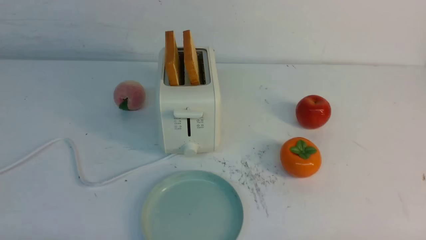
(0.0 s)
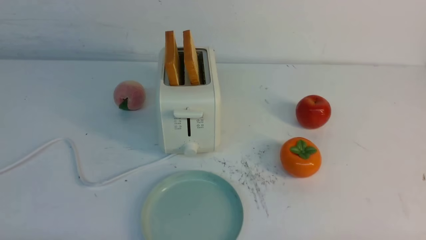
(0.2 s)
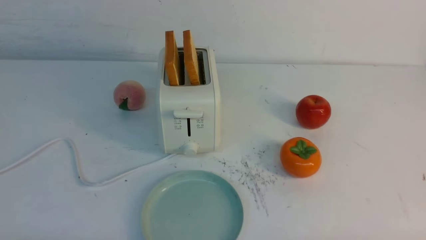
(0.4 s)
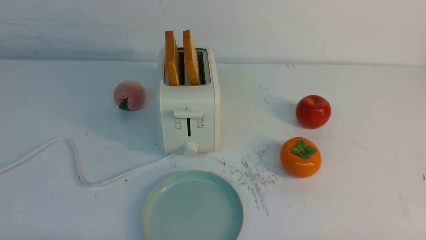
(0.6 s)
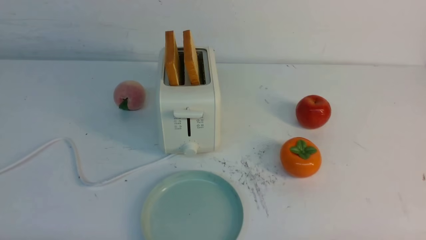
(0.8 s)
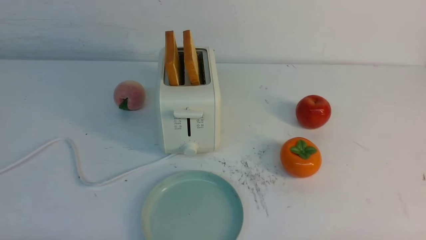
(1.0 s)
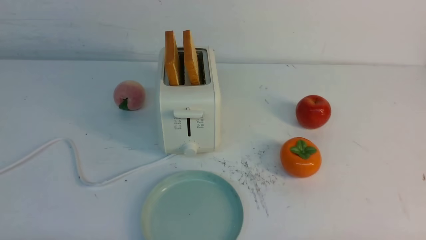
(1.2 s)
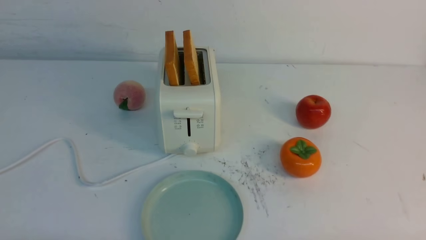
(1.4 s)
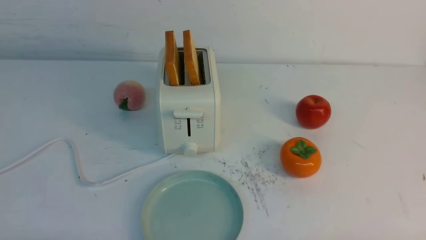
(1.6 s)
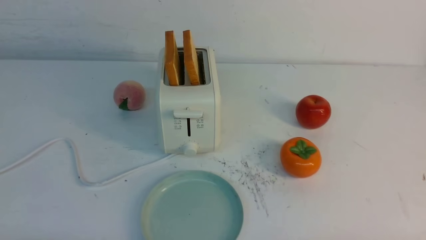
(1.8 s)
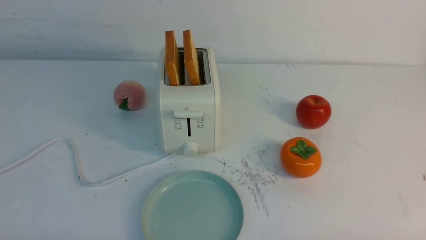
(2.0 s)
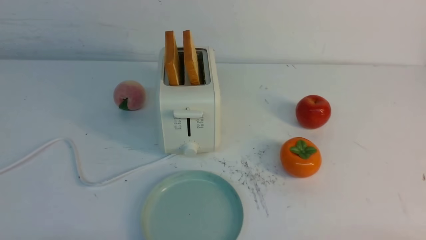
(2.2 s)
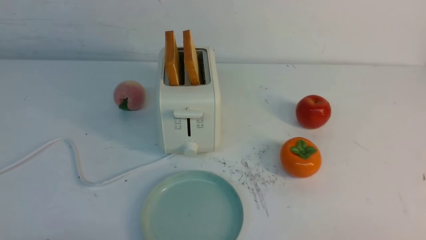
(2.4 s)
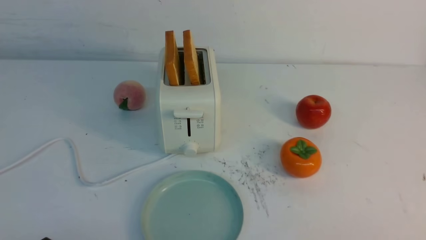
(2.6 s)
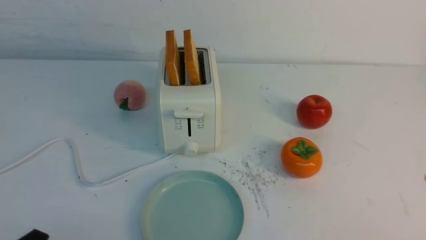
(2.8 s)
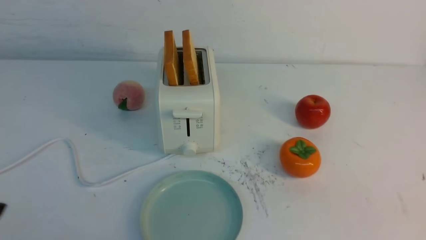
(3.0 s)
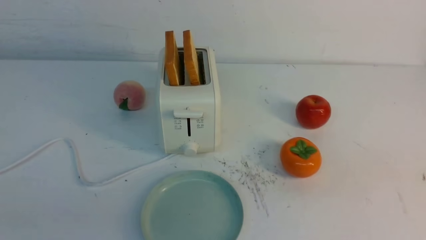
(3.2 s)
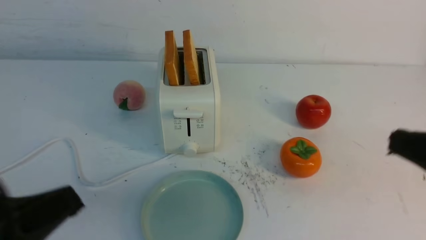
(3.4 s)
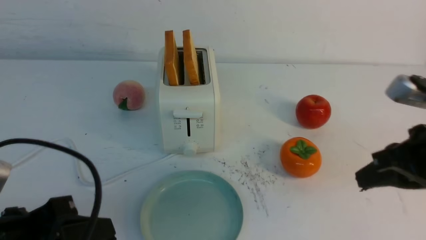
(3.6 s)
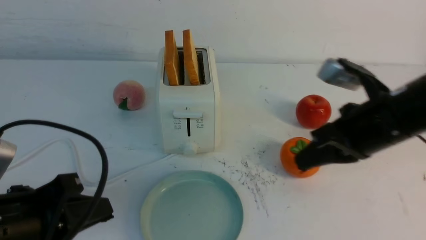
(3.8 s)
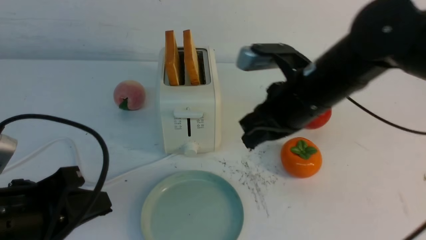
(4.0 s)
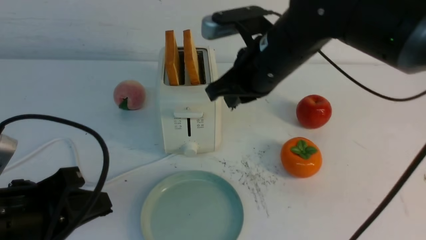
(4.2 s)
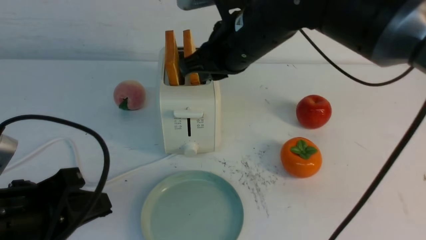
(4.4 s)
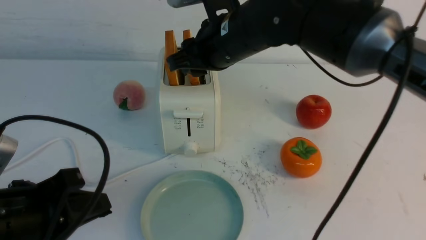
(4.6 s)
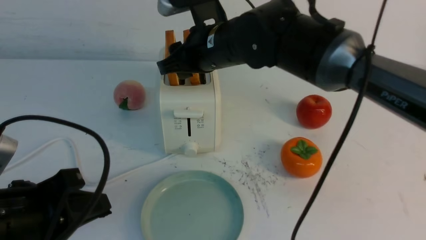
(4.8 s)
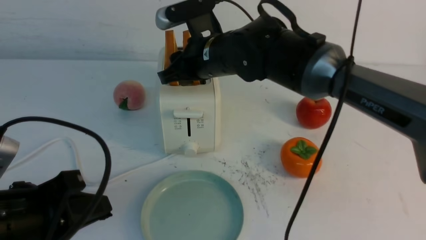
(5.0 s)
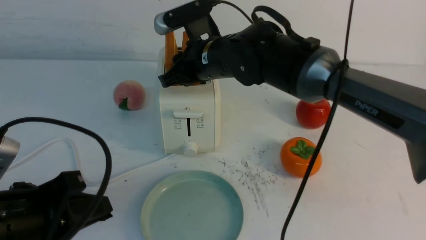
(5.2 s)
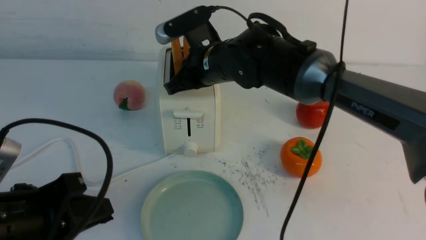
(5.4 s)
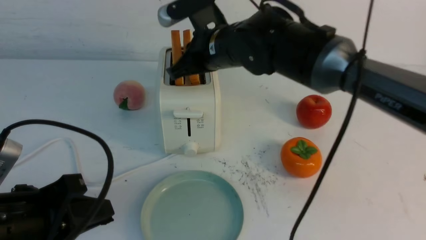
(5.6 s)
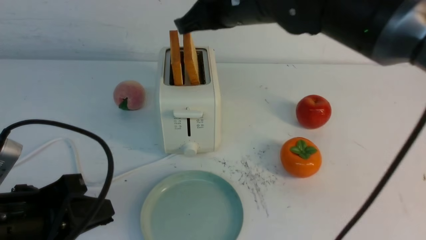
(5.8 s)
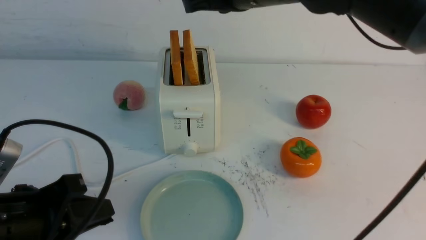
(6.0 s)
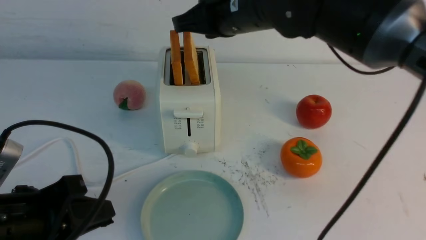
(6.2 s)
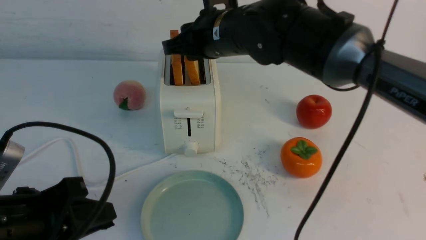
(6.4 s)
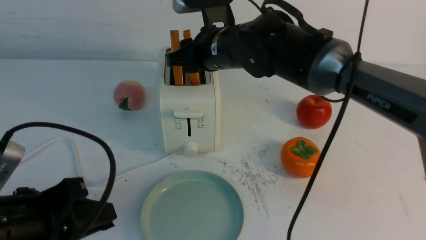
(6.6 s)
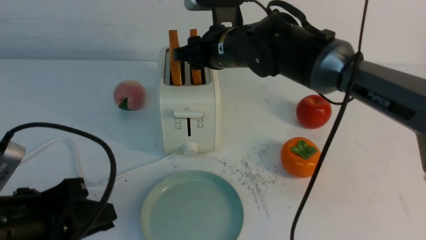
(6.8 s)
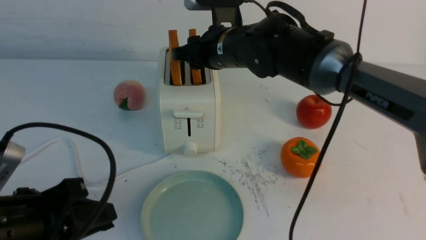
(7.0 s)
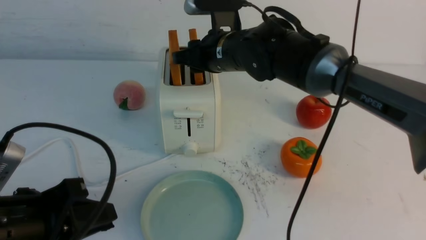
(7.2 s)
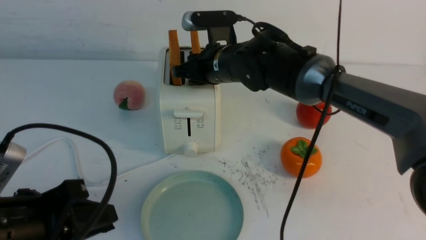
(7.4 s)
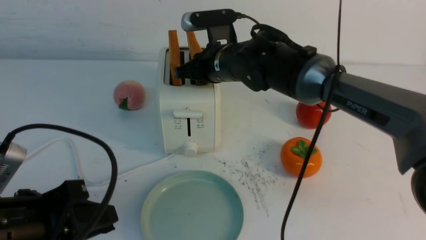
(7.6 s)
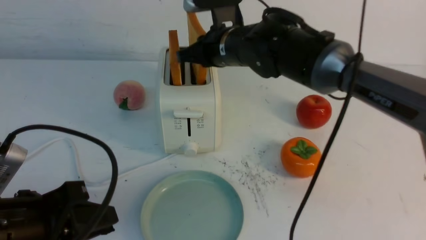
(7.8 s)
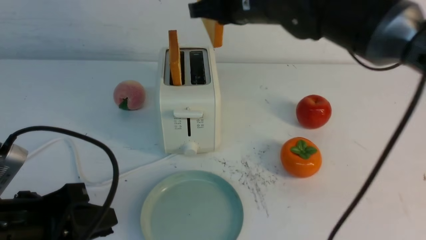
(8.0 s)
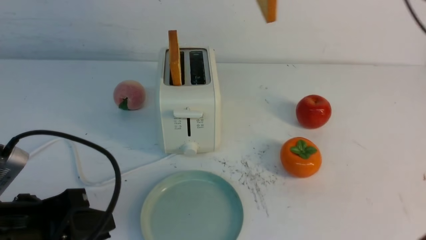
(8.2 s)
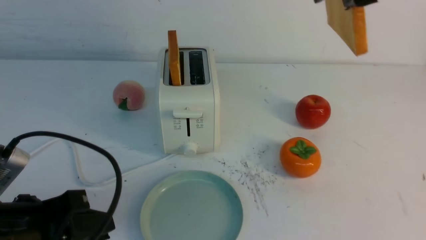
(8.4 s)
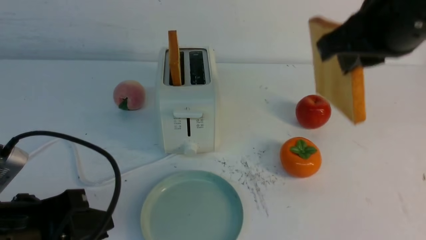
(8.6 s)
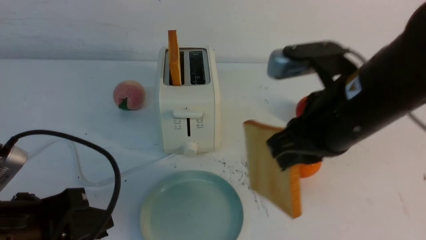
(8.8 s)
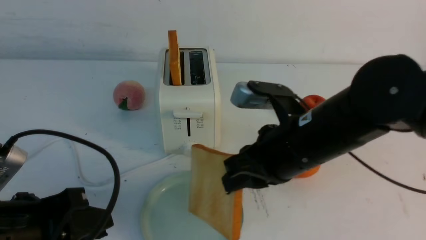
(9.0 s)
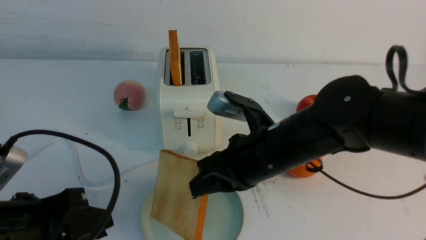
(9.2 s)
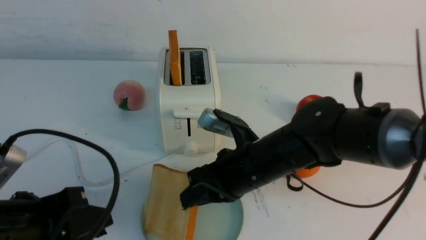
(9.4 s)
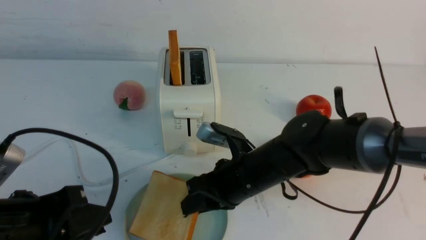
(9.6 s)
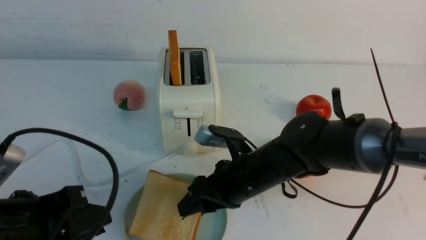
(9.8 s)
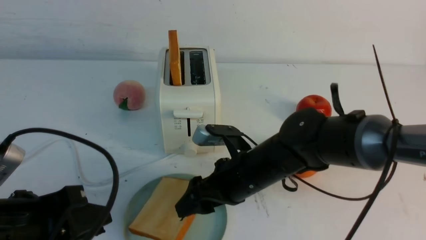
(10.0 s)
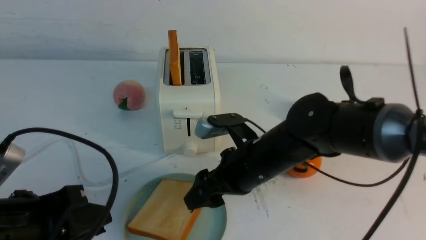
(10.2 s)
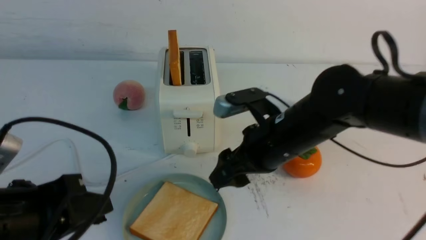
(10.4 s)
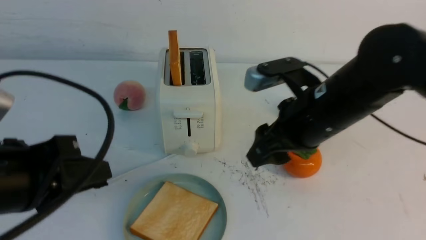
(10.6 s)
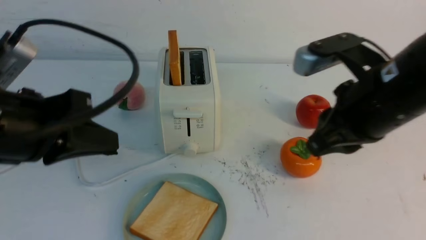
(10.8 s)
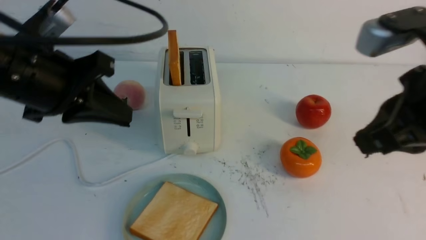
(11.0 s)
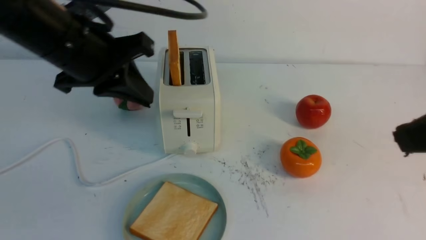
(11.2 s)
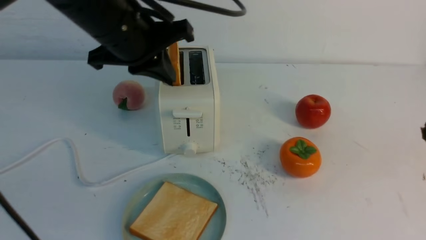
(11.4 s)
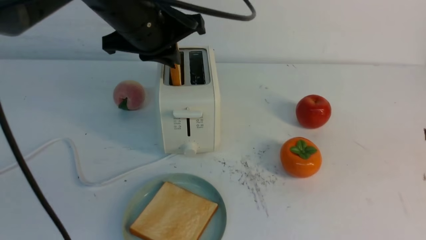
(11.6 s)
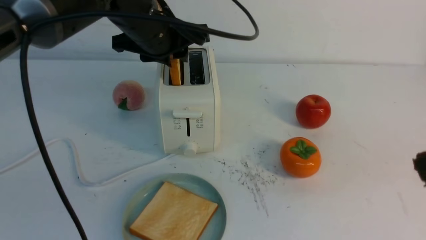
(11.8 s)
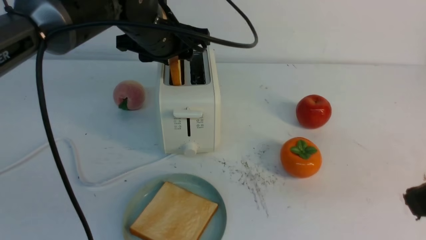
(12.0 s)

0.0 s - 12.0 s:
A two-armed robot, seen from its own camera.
Task of the whole recording: take toasted bread from bread machine on white table place on plate.
Step, 0.0 s - 7.8 s: use the right arm to take out a slice of bread.
Step, 8.0 s - 10.4 s: use the right arm to put a slice of bread into the plate.
0.0 s - 1.6 s: Neither gripper changes place.
3.0 s - 4.4 s: The right gripper travels forward and to the left by about 40 cm. Meanwhile the left gripper shifts approximately 10 cm forward.
4.4 s - 6.0 s: The right gripper opens and closes again.
6.0 s - 7.6 s: The right gripper goes some 15 cm downward and forward, and opens, then closes again.
7.6 s - 9.0 s: The right gripper shifts about 20 cm backward.
9.0 s - 10.4 s: The right gripper reaches about 10 cm downward, then returns, and opens.
10.4 s - 12.0 s: The right gripper travels backward, to the right and upward by about 25 cm, and closes up, while the left gripper shifts some 30 cm forward and to the right, and opens.

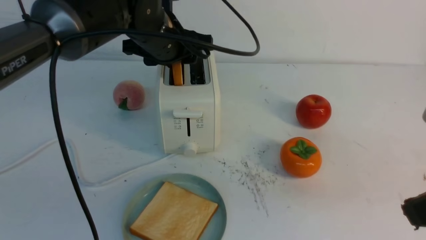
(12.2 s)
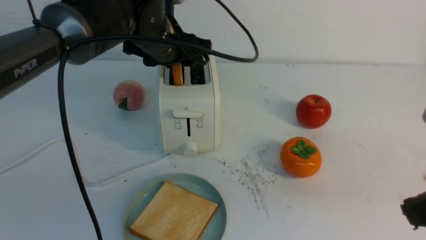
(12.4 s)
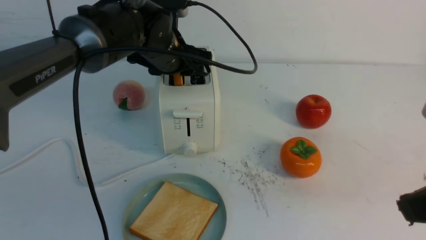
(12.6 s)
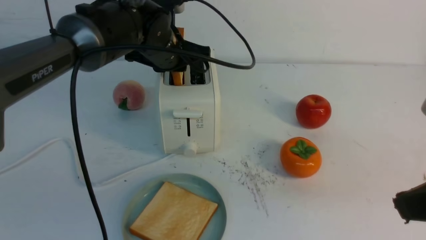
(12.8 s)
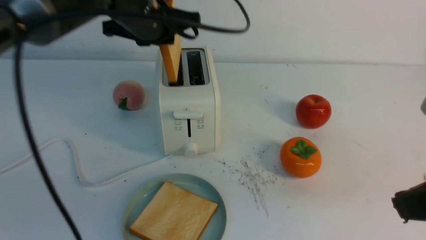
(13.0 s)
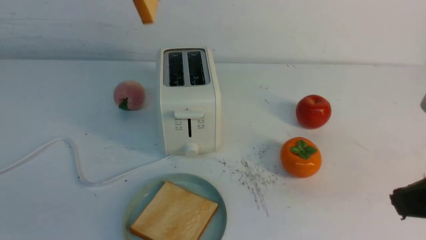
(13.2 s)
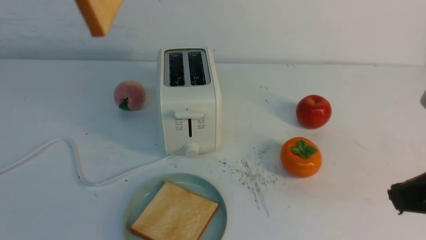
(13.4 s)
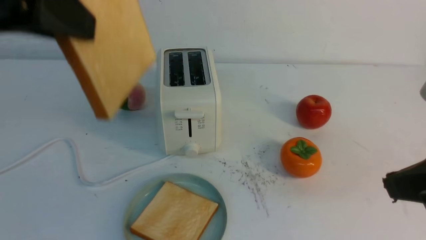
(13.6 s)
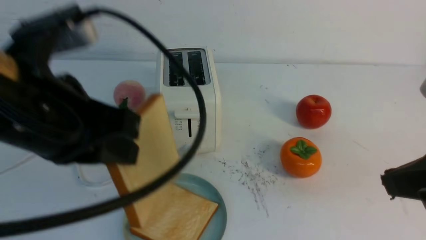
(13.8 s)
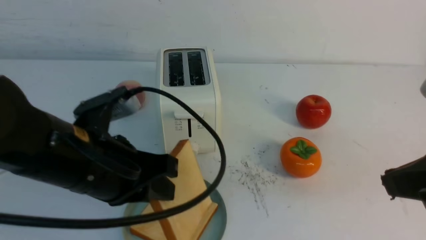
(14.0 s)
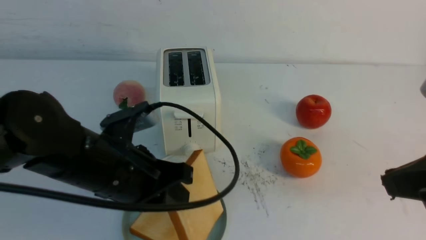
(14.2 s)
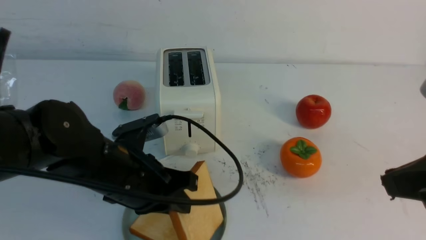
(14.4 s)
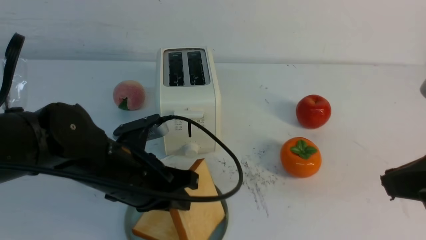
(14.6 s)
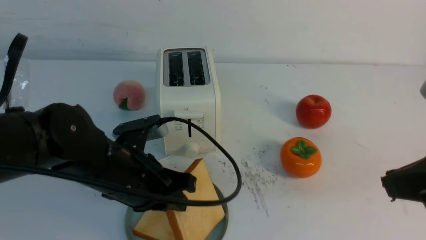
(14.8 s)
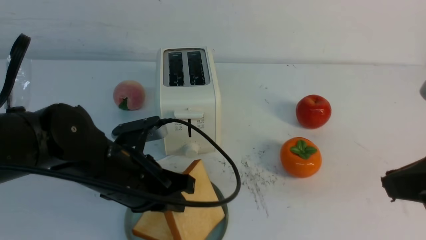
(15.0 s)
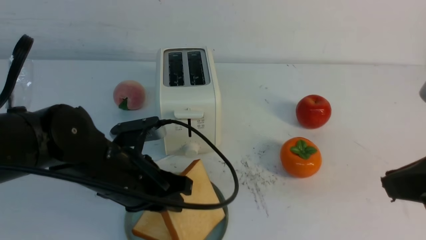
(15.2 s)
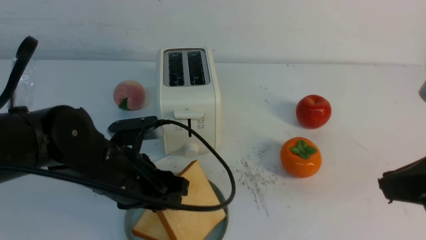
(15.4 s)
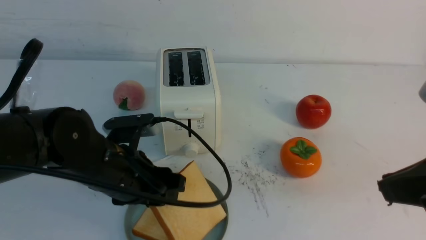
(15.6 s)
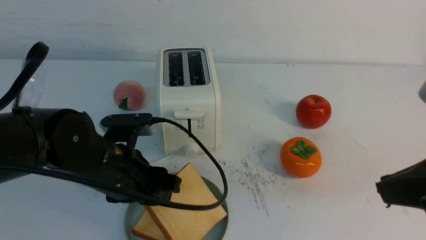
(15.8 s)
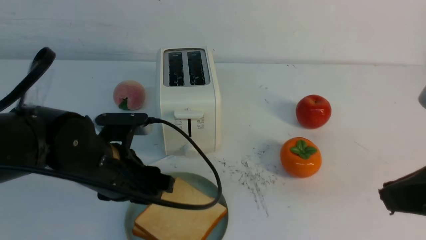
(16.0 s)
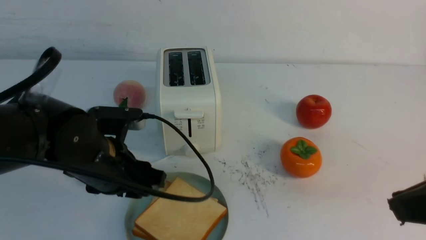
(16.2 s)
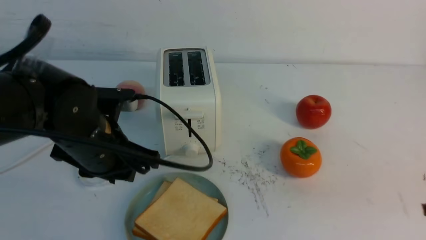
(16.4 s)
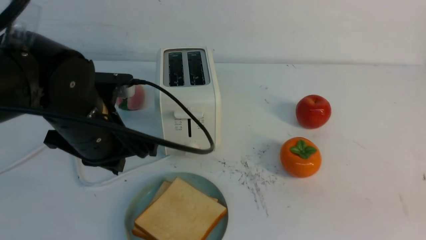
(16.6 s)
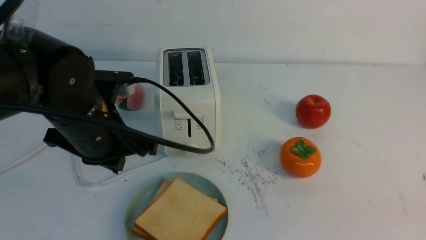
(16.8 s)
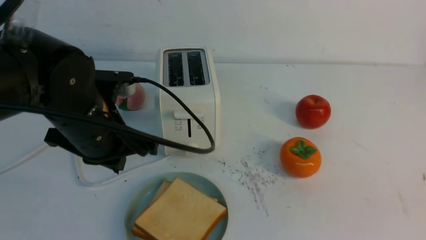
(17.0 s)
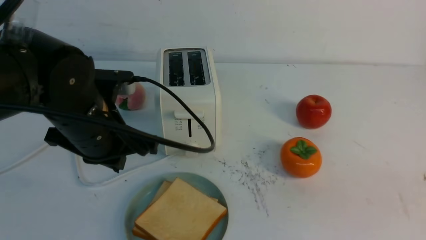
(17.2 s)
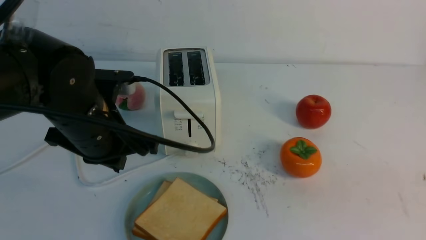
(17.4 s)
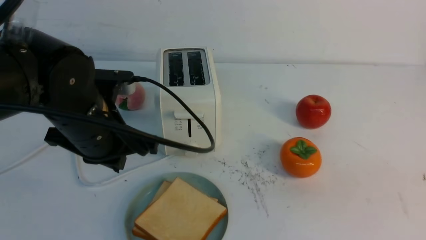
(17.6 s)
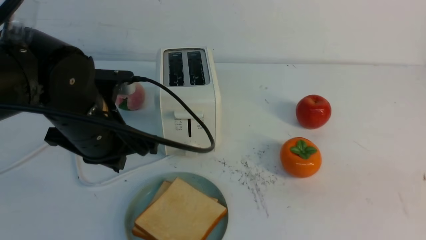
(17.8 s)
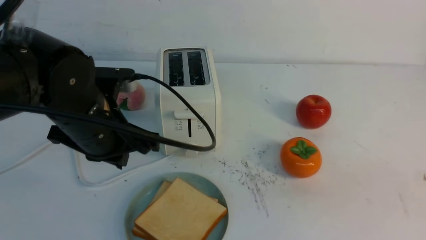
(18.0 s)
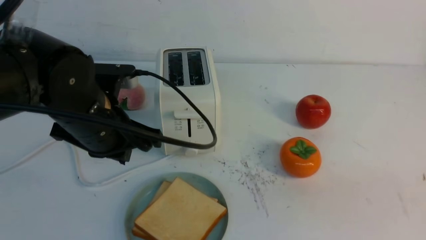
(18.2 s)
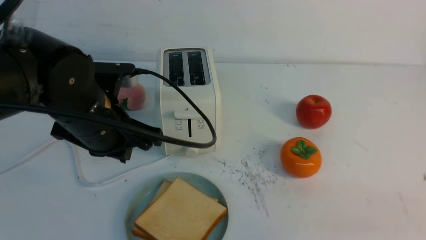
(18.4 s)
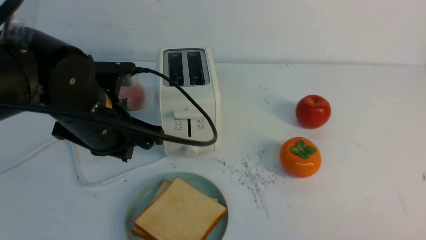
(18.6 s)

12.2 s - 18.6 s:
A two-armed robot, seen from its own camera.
Task of the whole recording: take toasted bread from bread machine on white table place on plate.
Step, 13.2 s - 16.2 s: use the left arm to put a slice of bread into the empty plate.
12.2 s - 13.8 s: The left gripper is displaced backward by roughly 20 cm, and closes.
13.8 s - 15.4 s: The left gripper goes some 15 cm downward, and opens up.
15.4 s - 17.0 s: The right gripper goes some 15 cm backward and to the right. Meanwhile the left gripper travels upward by approximately 5 cm, and closes up.
17.0 s - 18.6 s: The right gripper travels downward by about 15 cm.
